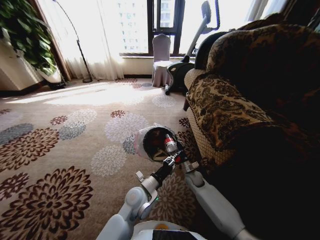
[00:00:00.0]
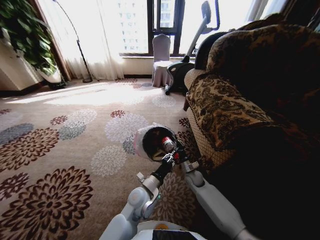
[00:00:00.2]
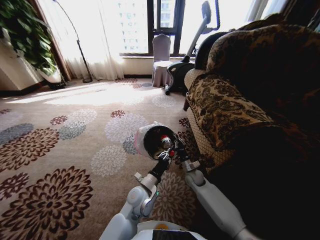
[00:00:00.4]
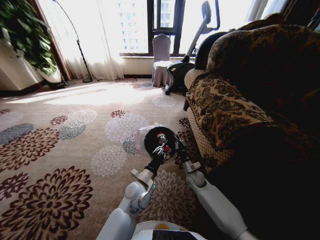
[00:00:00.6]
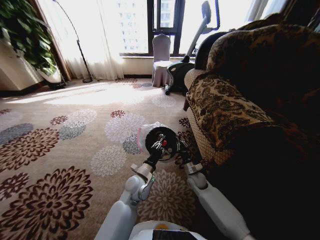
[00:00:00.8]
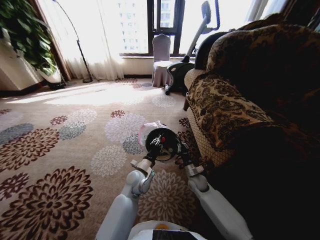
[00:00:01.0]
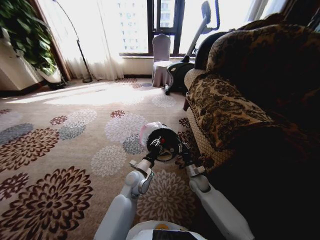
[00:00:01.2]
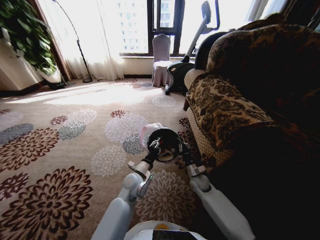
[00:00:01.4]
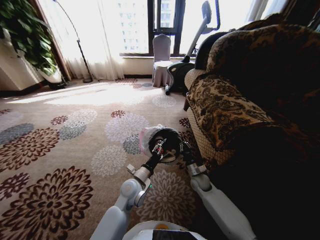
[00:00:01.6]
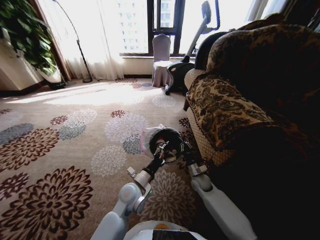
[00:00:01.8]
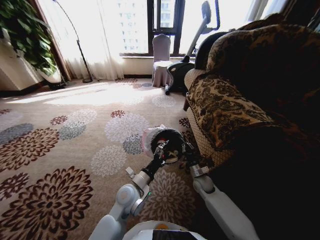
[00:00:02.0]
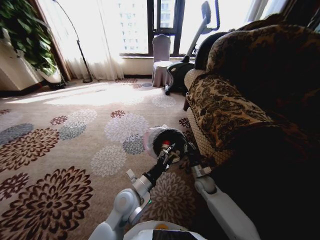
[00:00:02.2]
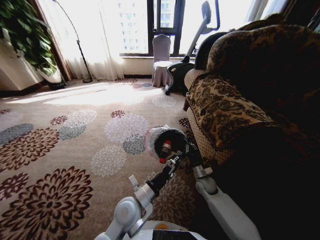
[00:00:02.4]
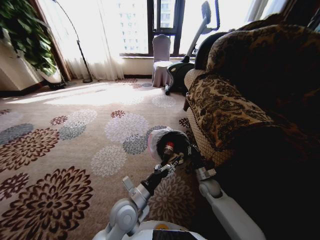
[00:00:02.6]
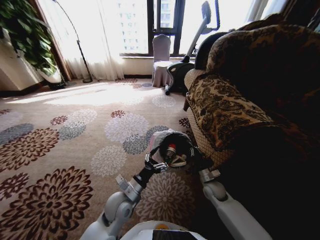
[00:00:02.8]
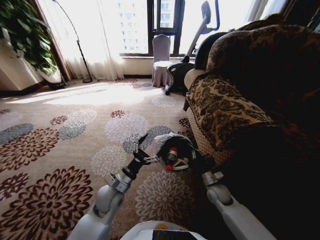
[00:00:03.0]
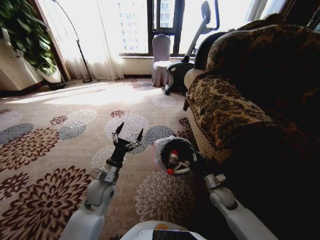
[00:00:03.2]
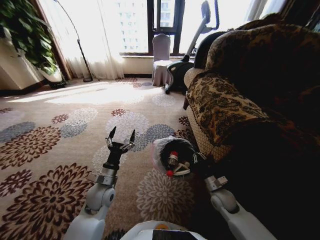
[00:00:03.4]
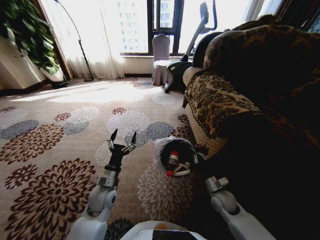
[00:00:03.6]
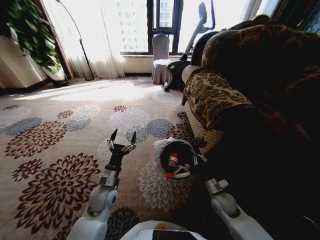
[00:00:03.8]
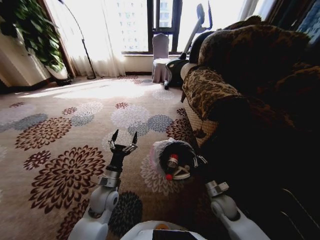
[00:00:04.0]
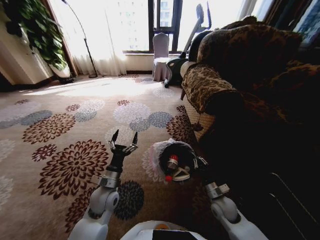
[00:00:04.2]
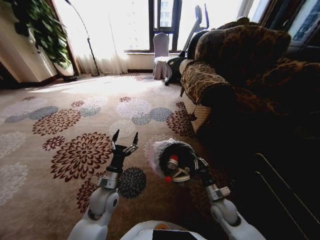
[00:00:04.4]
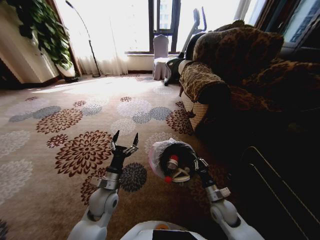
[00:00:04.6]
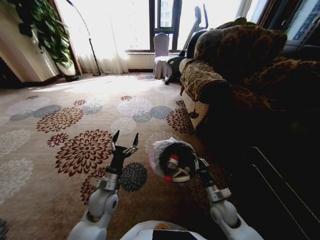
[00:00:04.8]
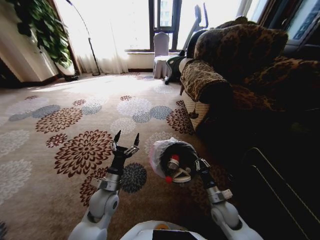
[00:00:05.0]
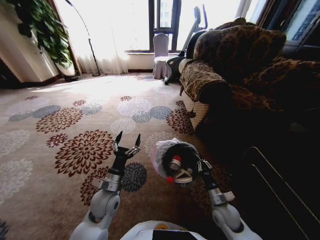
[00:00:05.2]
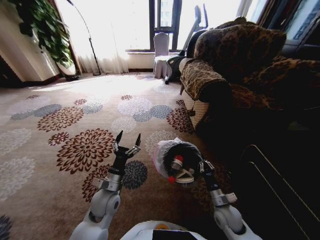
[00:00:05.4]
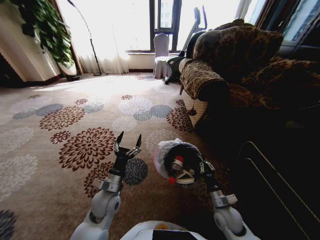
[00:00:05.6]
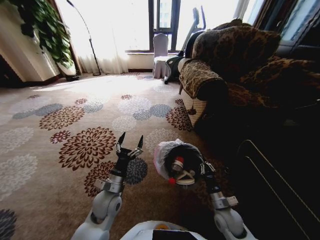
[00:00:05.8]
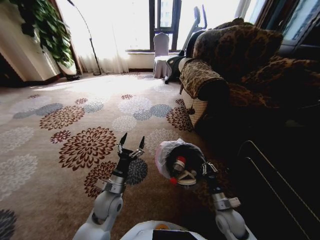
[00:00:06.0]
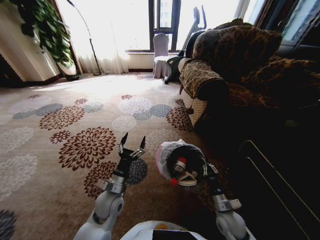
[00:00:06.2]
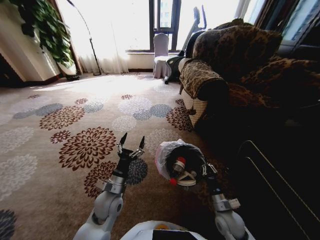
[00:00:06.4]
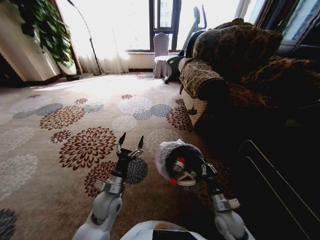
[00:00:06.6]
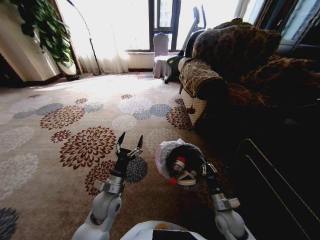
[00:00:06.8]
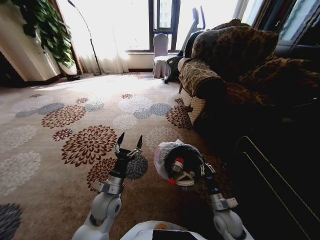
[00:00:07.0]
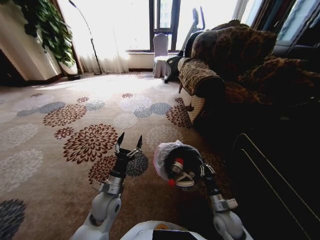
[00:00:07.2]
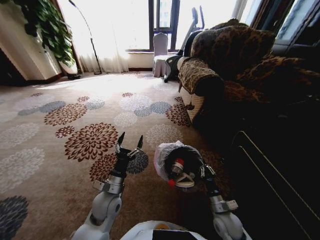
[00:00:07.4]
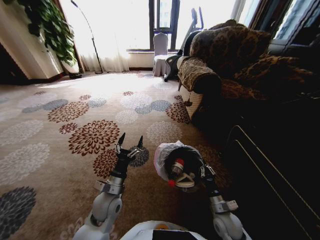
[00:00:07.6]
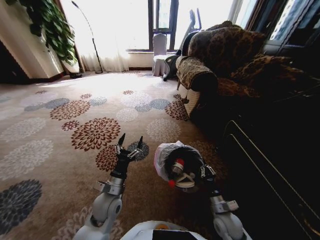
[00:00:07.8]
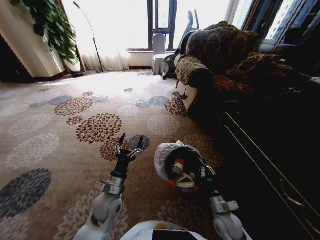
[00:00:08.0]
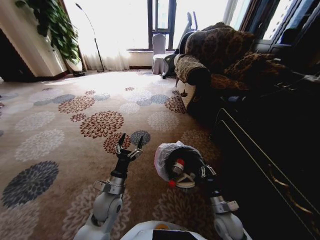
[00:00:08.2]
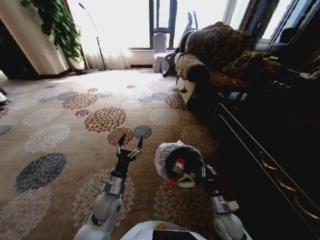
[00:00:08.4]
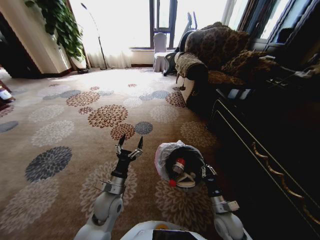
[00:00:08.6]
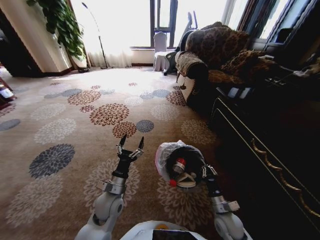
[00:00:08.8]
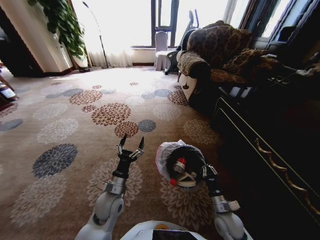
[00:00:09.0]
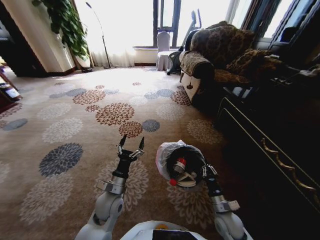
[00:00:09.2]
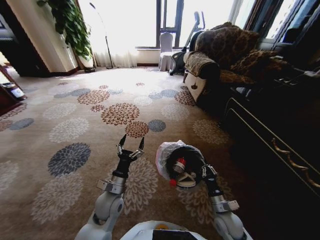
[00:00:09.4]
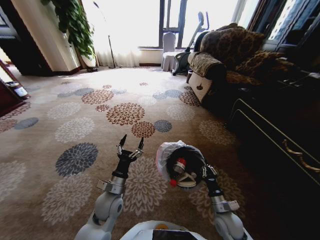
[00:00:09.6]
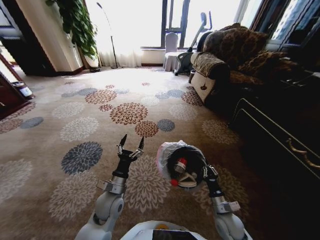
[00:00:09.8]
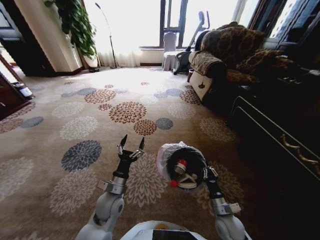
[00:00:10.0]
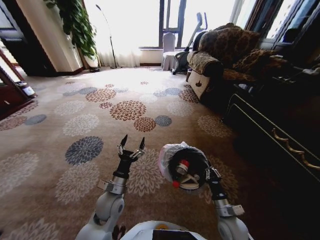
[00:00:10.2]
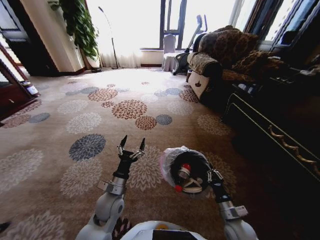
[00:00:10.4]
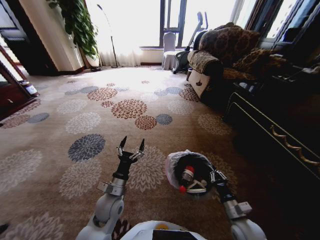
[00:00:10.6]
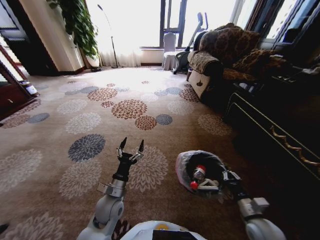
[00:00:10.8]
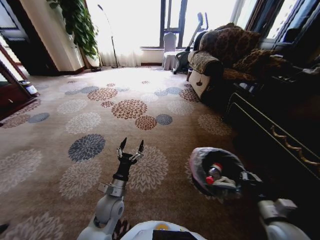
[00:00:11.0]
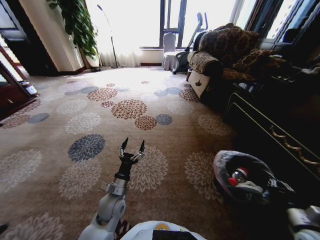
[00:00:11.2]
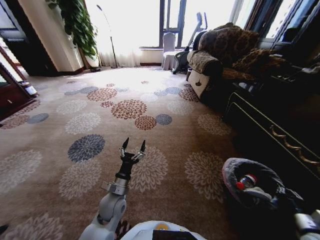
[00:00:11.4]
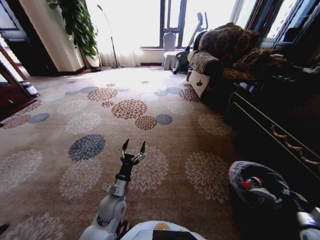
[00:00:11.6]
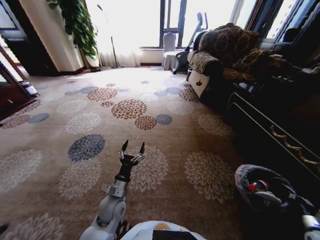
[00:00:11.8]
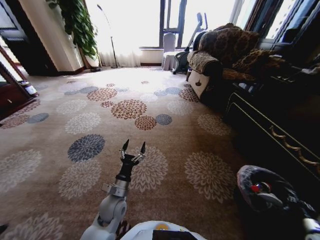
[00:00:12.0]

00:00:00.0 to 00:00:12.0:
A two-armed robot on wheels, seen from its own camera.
Task of the whole recording: Pick up the trash from the ground and place it into the trash bin.
00:00:00.0 to 00:00:01.6: The left gripper opens its fingers.
00:00:01.6 to 00:00:03.0: The right gripper goes roughly 10 cm to the right and backward; the left gripper goes about 5 cm to the left.
00:00:03.0 to 00:00:04.4: The right gripper shifts some 5 cm backward.
00:00:10.4 to 00:00:12.0: The right gripper shifts some 30 cm to the right.

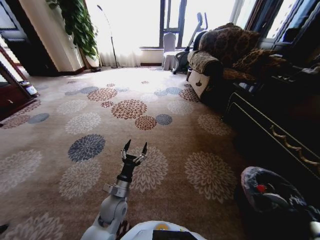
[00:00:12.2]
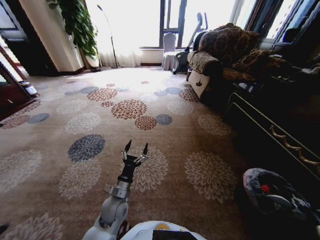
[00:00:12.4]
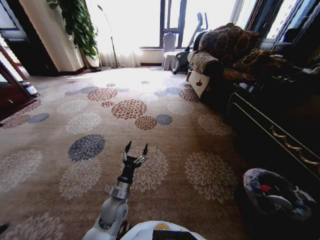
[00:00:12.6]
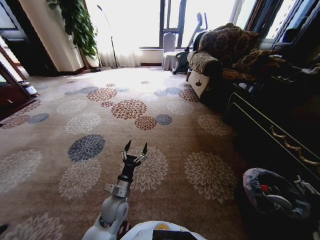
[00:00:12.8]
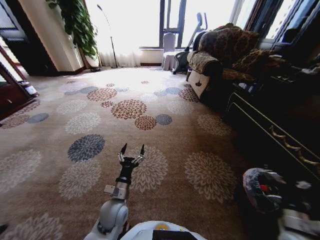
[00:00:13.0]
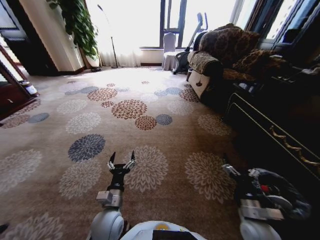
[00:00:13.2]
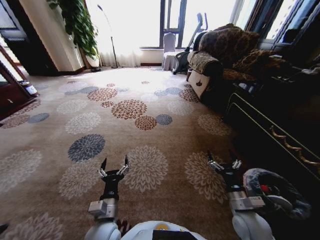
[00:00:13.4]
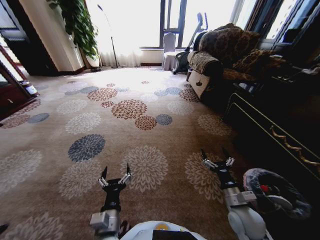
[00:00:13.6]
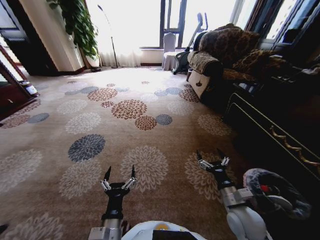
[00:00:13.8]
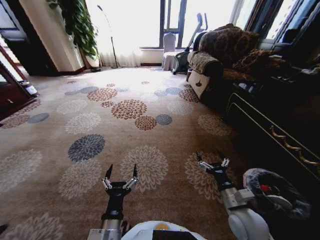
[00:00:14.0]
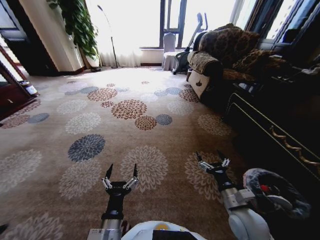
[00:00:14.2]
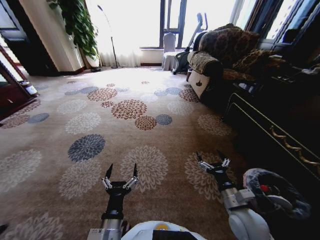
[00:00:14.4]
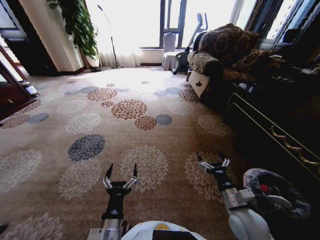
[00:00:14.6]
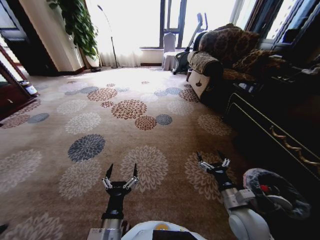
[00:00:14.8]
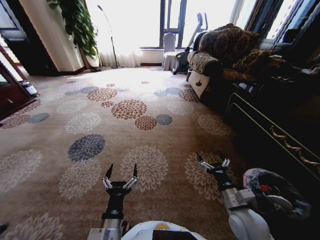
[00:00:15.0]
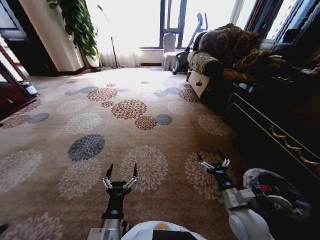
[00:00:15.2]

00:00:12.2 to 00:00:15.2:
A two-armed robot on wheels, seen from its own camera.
Task of the whole recording: Pick up the trash from the ground and place it into the trash bin.
00:00:12.2 to 00:00:13.8: The left gripper moves backward, roughly 15 cm, while the right gripper heads to the left, covering approximately 35 cm, and opens its fingers.
00:00:13.8 to 00:00:15.2: The two grippers keep their place.
